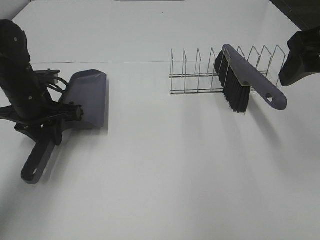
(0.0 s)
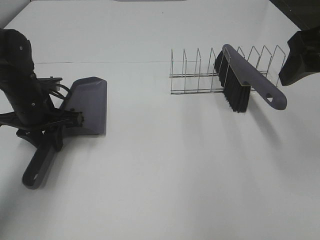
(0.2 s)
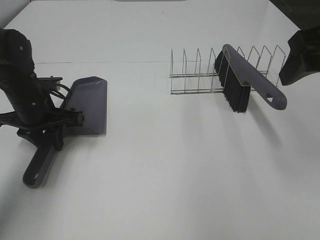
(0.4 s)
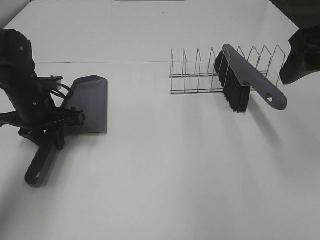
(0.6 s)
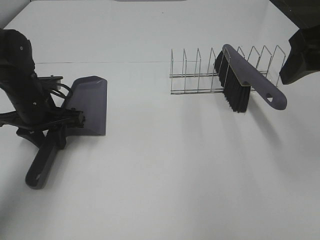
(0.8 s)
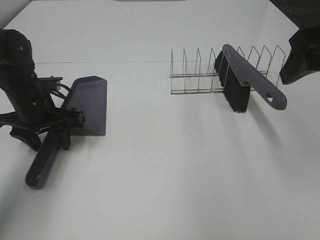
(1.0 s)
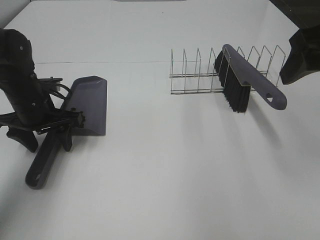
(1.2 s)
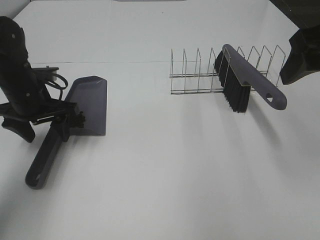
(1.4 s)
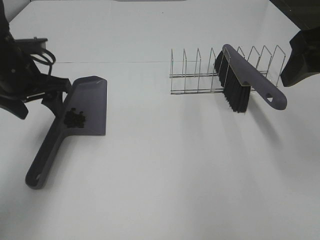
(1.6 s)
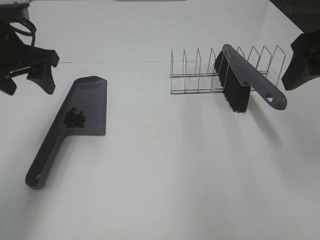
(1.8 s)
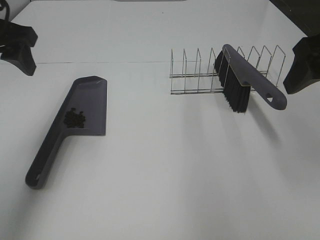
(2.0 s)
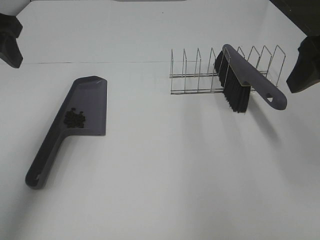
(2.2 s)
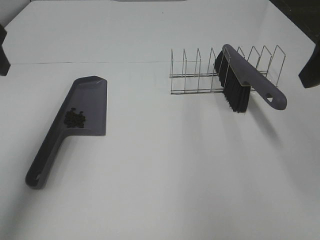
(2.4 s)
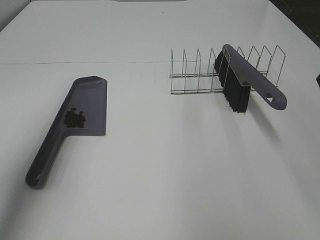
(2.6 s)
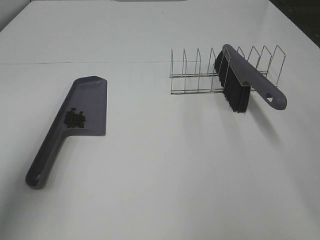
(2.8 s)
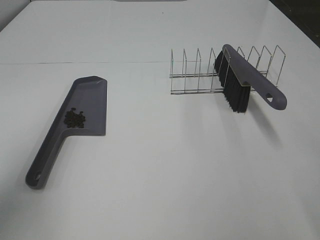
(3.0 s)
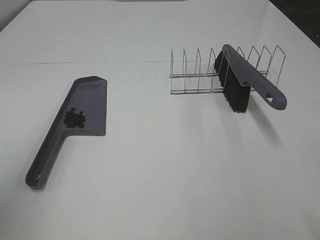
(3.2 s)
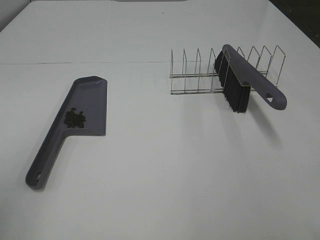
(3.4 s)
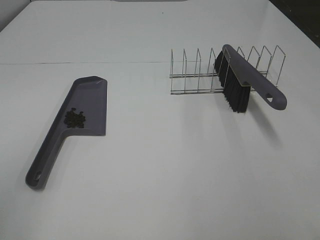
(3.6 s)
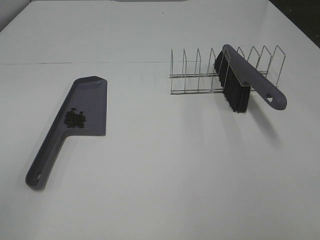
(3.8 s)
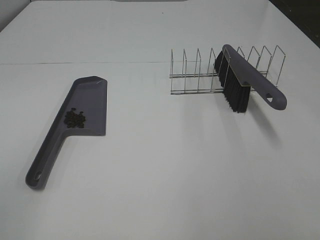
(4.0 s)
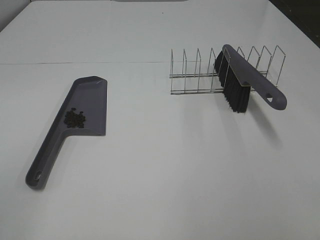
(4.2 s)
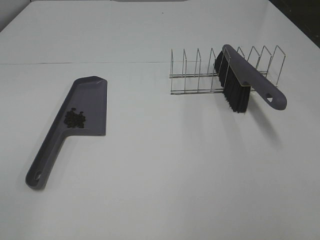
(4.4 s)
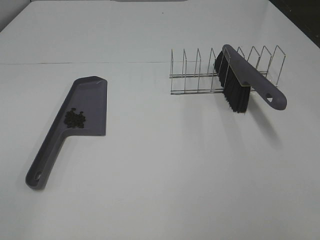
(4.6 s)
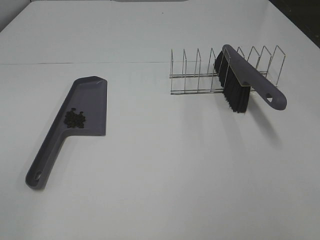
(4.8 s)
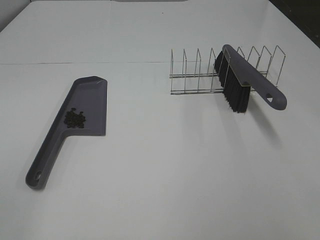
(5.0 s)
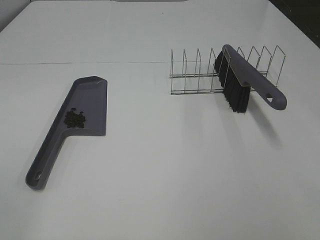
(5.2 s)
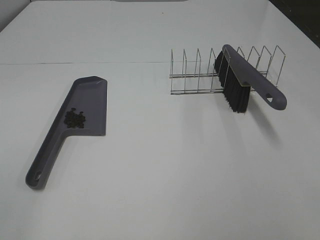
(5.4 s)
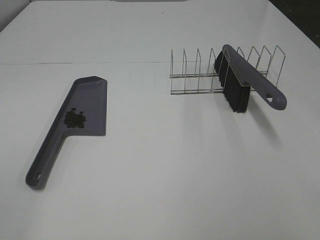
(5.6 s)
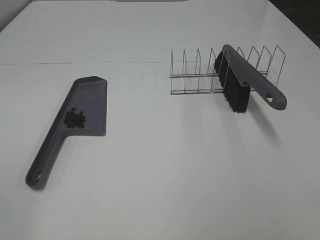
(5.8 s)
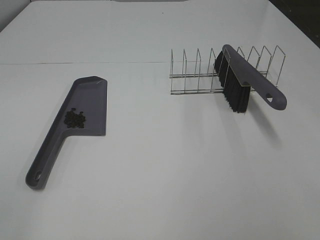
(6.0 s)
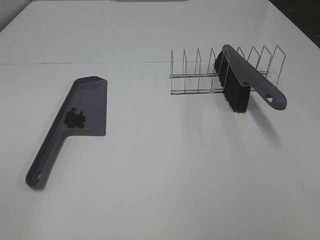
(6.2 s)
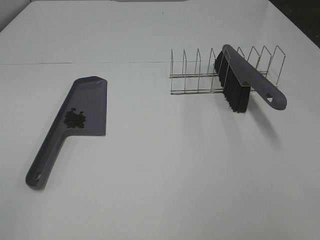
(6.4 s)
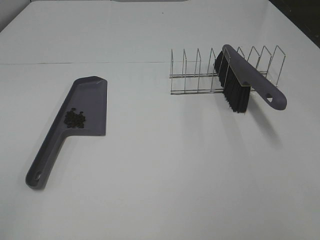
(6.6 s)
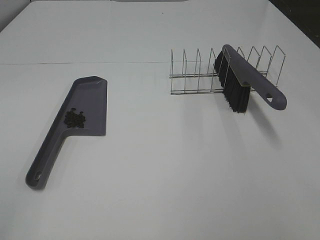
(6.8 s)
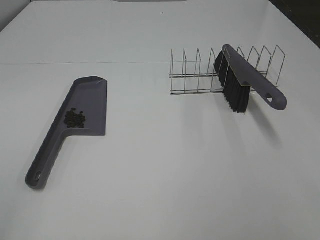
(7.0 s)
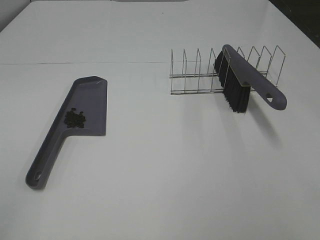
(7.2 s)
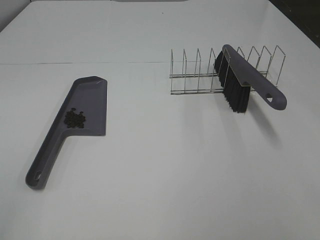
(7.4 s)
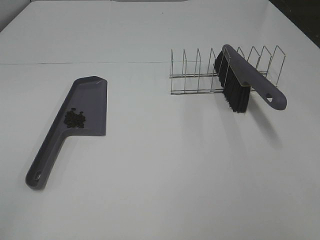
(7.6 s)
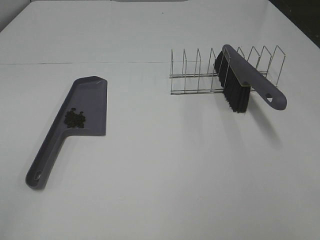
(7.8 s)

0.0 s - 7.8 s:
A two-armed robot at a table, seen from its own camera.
Task of the whole recording: Sweep Coffee Bean.
0.0 s - 1.6 s: The left gripper heads upward, covering about 5 cm, and opens up.
1.6 s - 3.2 s: The left gripper moves backward and upward, approximately 25 cm. The right gripper shifts about 15 cm backward.

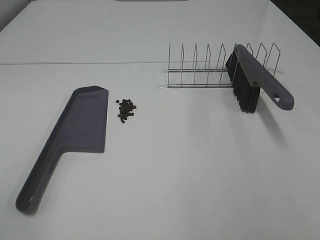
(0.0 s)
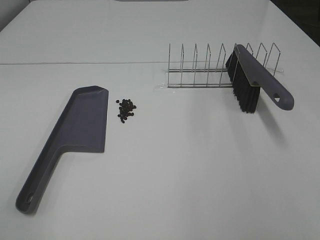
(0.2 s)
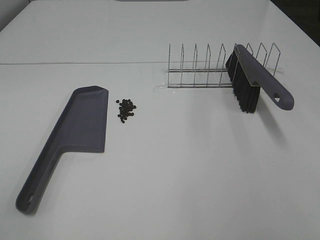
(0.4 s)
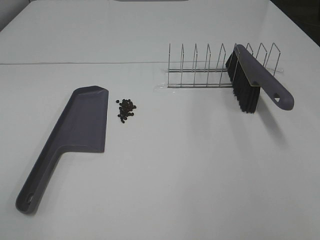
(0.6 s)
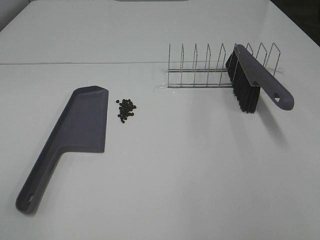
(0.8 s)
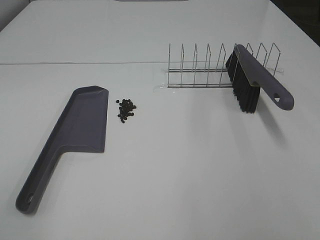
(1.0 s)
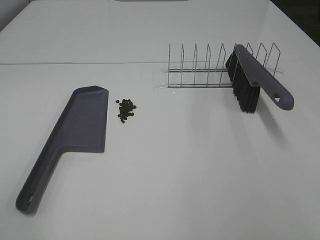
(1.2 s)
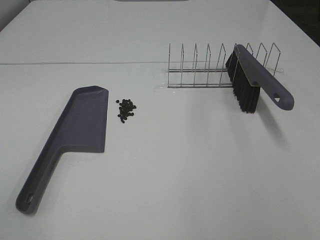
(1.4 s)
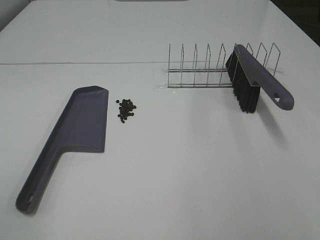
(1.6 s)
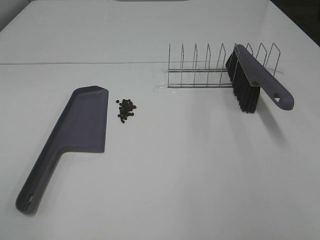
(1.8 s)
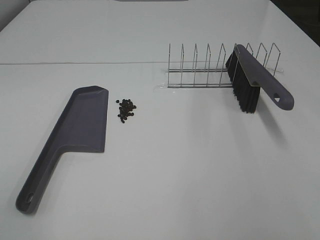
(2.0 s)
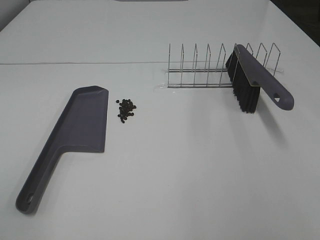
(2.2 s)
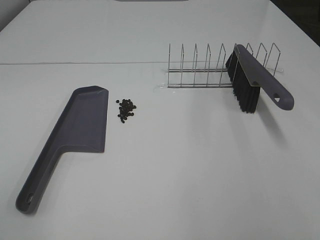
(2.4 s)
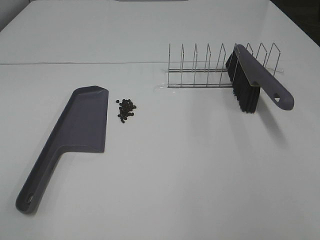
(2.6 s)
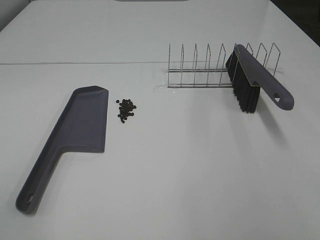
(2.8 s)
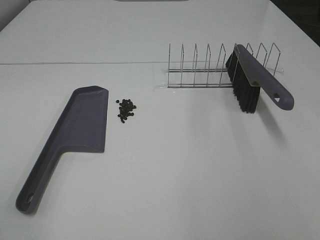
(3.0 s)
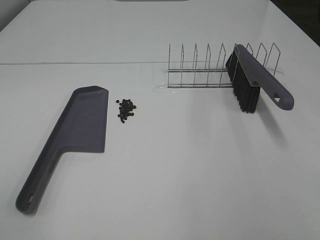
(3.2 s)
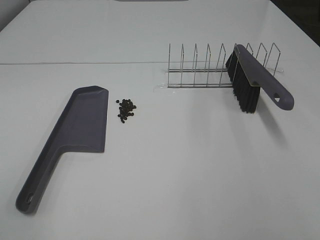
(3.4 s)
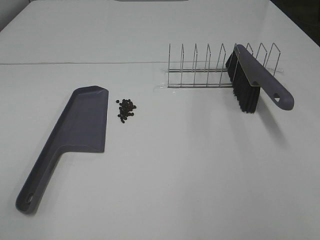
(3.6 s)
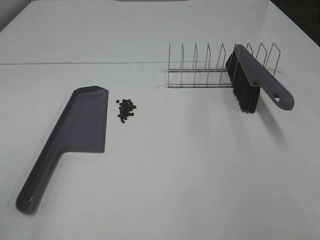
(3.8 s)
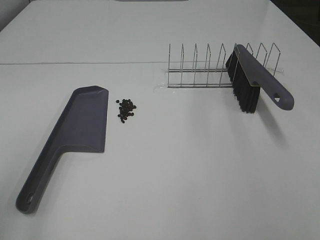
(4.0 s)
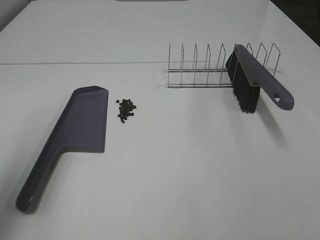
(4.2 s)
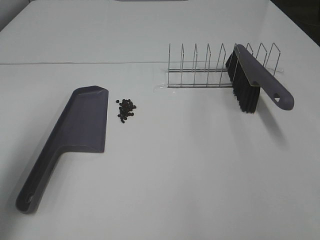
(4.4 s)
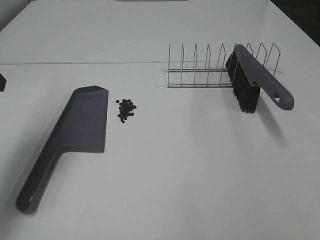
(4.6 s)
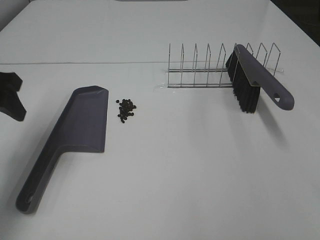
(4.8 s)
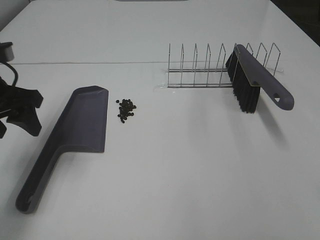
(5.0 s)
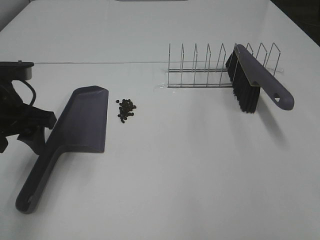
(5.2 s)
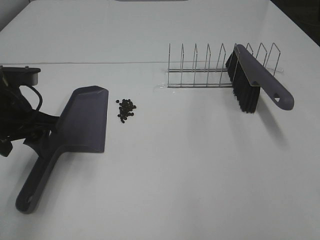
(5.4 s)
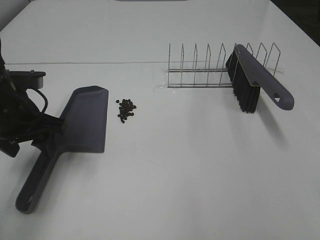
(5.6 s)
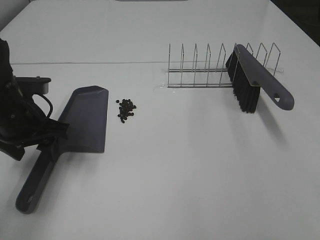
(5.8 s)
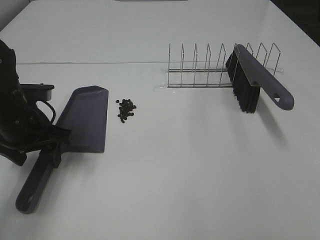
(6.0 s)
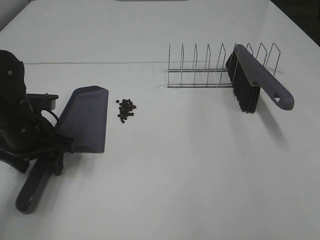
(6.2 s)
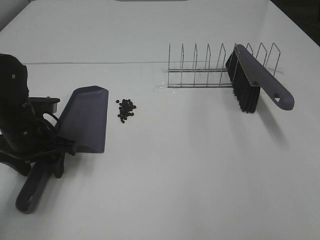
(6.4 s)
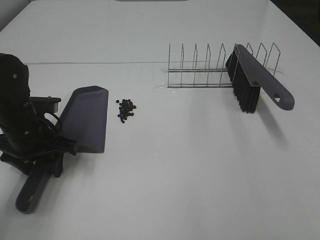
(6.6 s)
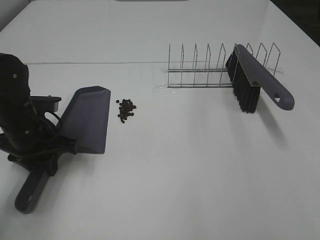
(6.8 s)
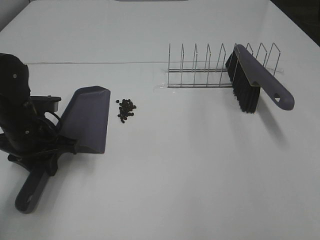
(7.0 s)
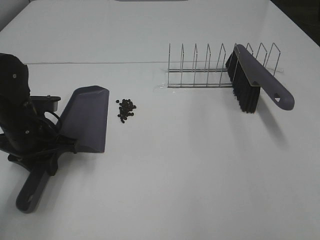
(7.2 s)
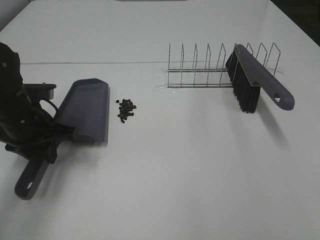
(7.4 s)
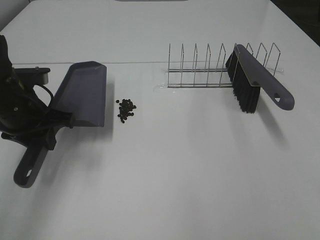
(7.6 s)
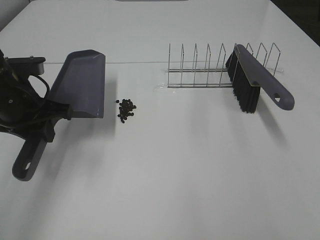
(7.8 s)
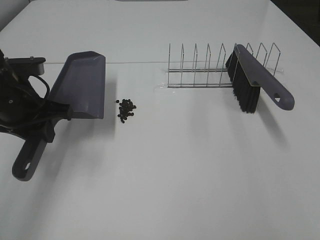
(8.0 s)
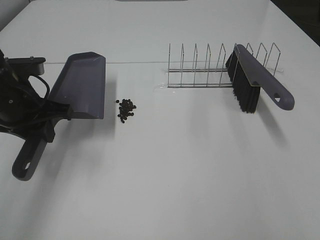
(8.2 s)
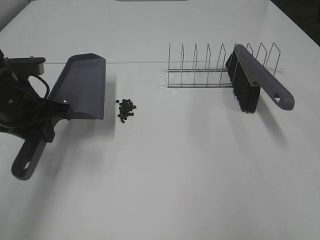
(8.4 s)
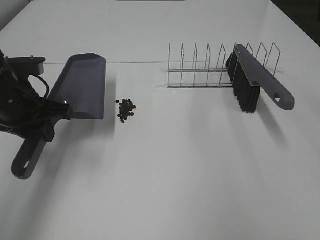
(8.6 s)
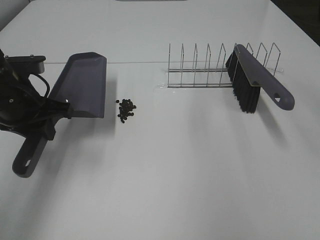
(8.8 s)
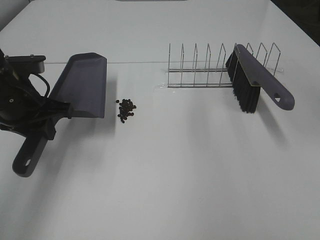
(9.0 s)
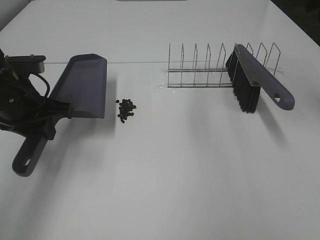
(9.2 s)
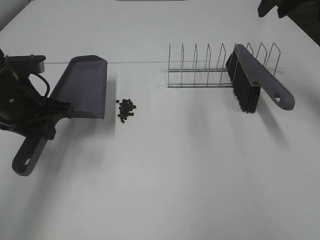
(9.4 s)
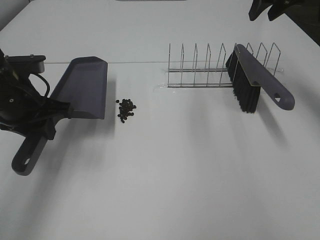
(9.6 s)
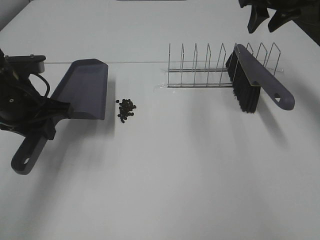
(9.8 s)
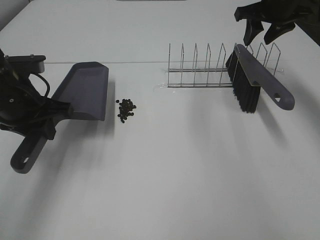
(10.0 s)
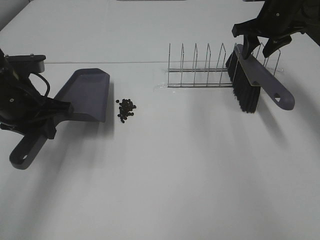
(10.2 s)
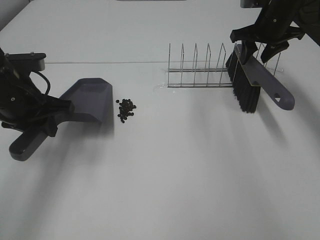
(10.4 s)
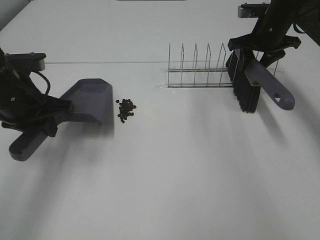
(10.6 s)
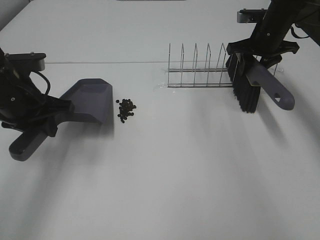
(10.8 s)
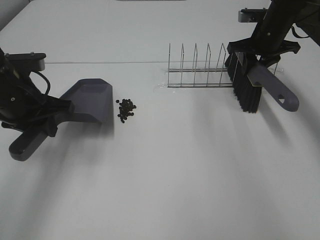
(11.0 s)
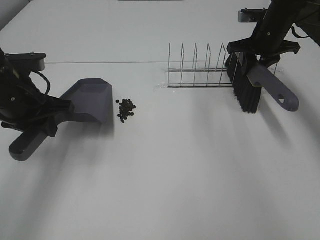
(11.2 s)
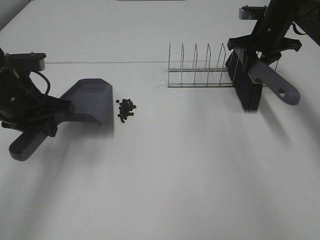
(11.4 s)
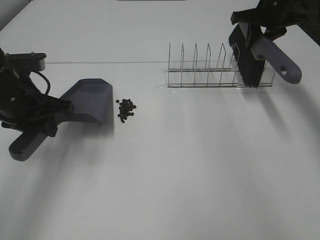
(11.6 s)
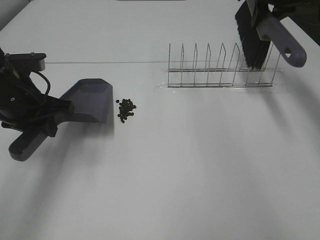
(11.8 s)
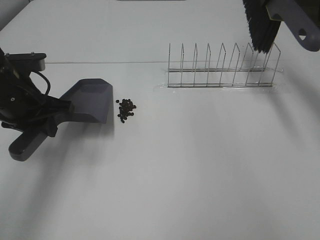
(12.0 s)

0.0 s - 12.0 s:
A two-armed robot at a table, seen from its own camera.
Task of the whole recording: Sweep Coffee Bean.
Step, 0.0 s - 6.6 s: Left hand: grab the dustpan.
Step, 7.8 s - 11.2 s: Right hand:grab the broom.
0.0 s - 3.0 s: Neither gripper changes place.
3.0 s - 4.4 s: The left gripper moves forward, roughly 25 cm.
4.4 s - 6.0 s: The left gripper is displaced downward and forward by approximately 20 cm.
6.0 s - 7.6 s: The left gripper closes its fingers.
9.0 s - 10.4 s: The right gripper shifts approximately 25 cm forward and downward.
10.4 s - 12.0 s: The right gripper is displaced upward by roughly 15 cm, and closes up.

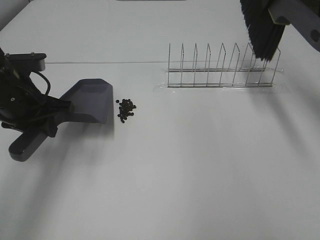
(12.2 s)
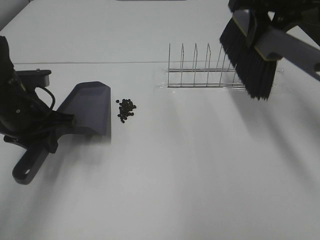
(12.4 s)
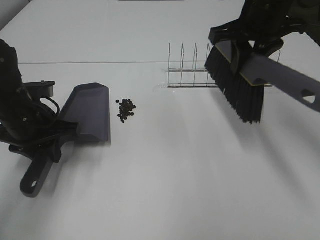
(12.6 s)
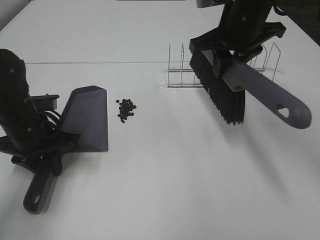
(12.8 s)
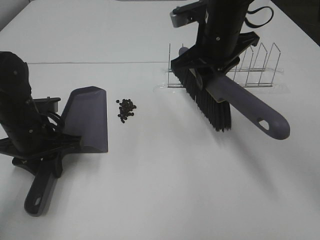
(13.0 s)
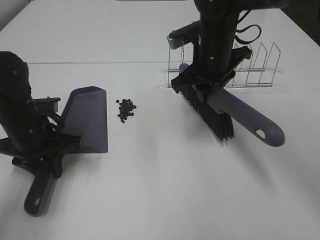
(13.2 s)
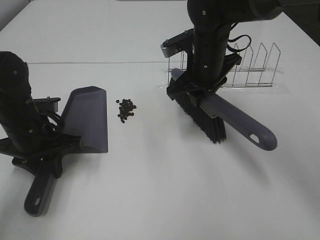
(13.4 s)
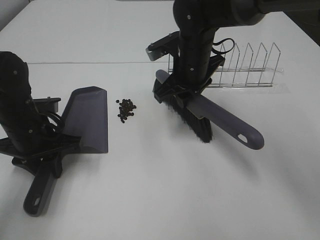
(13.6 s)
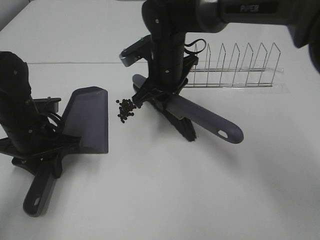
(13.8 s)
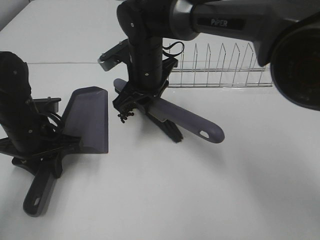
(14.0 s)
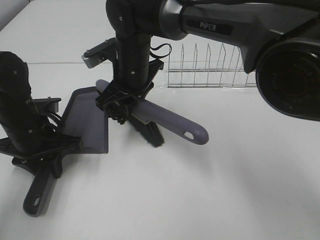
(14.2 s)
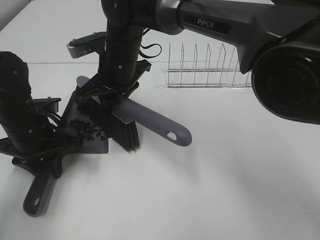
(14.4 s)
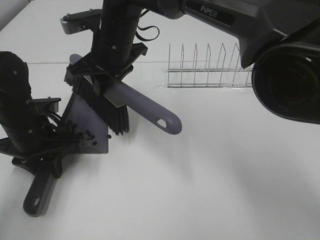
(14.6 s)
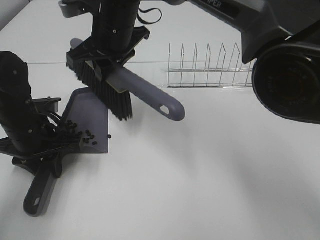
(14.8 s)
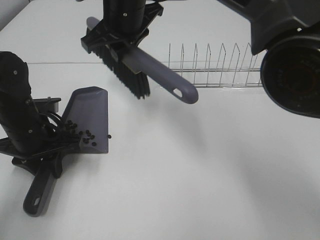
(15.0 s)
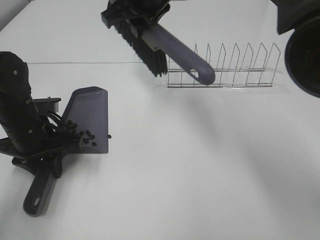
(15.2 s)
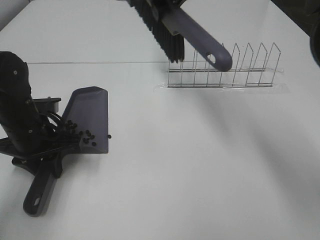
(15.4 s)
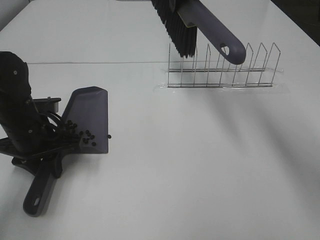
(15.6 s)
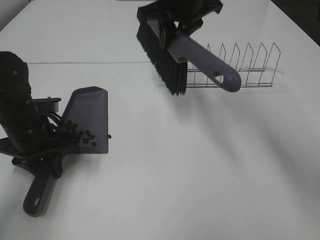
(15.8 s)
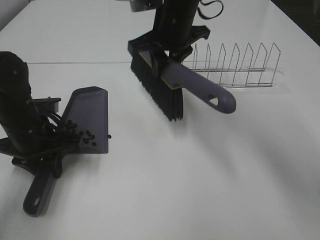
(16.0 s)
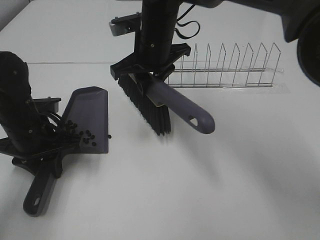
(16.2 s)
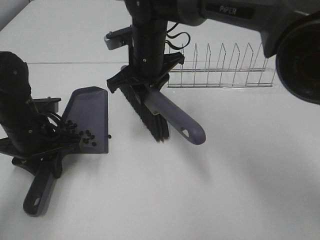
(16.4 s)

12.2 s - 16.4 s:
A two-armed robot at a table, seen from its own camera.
Task of the whole recording: Sweep Coffee Bean.
12.2 s - 13.6 s: The left gripper travels downward by roughly 5 cm. The right gripper goes roughly 25 cm to the left and downward.
13.6 s - 15.0 s: The right gripper moves upward and to the left, roughly 15 cm.
15.0 s - 16.4 s: The right gripper is displaced downward by some 10 cm.
